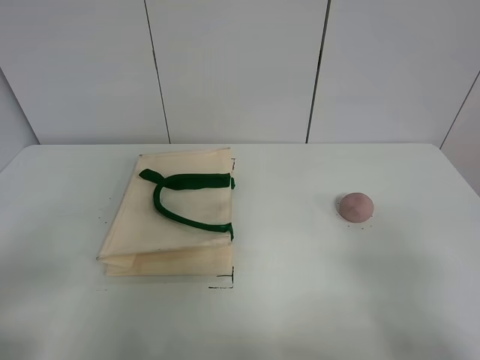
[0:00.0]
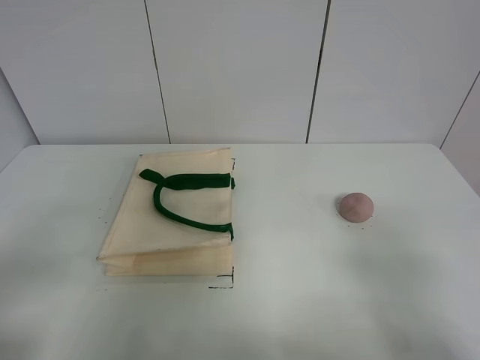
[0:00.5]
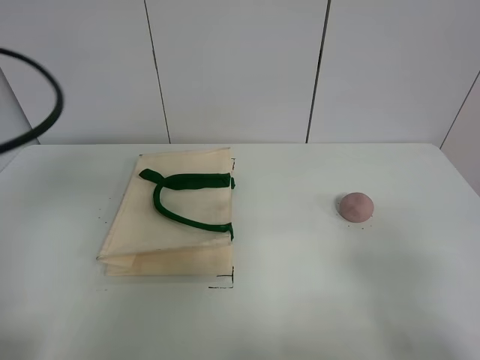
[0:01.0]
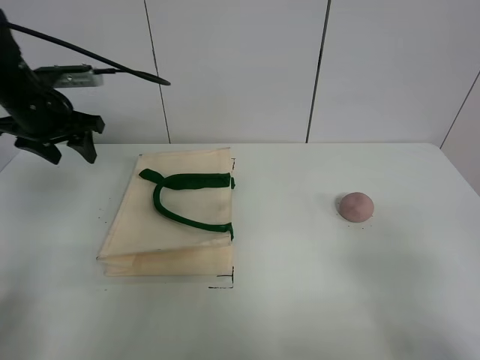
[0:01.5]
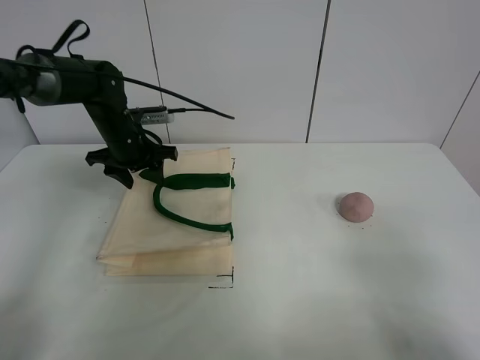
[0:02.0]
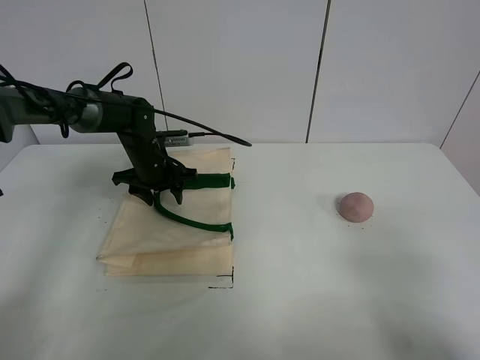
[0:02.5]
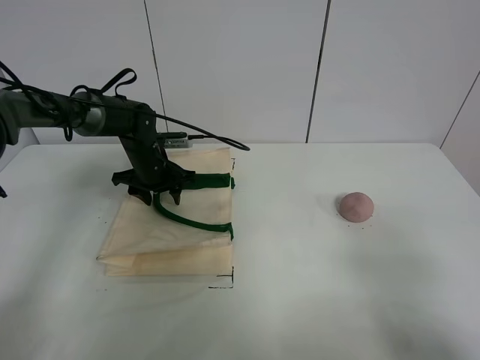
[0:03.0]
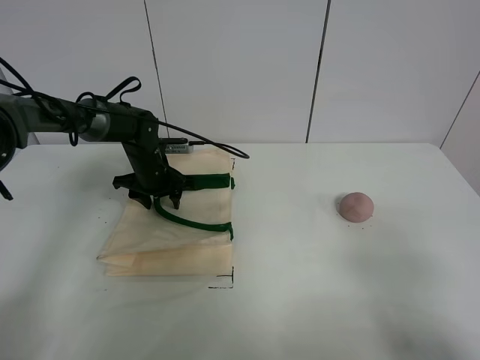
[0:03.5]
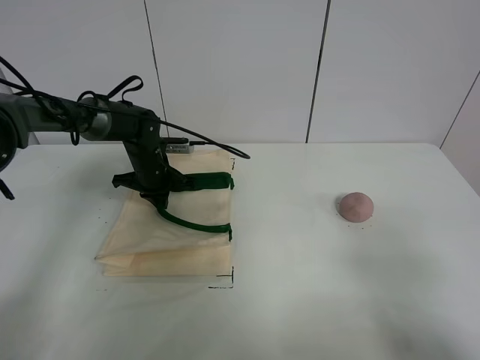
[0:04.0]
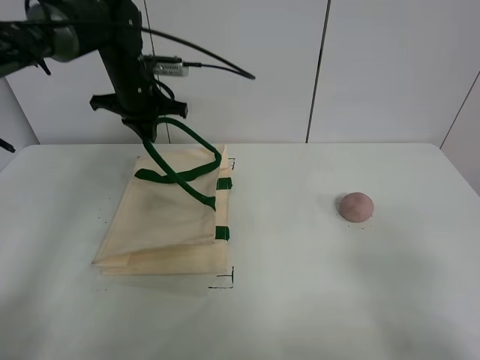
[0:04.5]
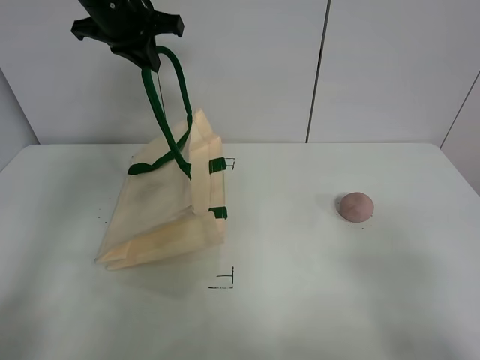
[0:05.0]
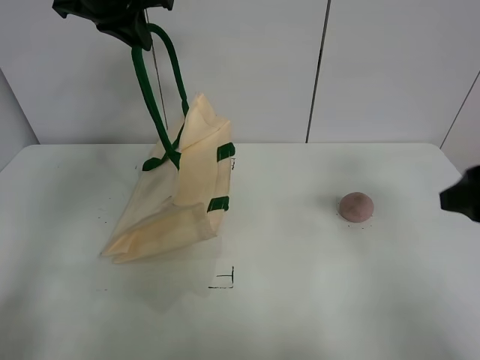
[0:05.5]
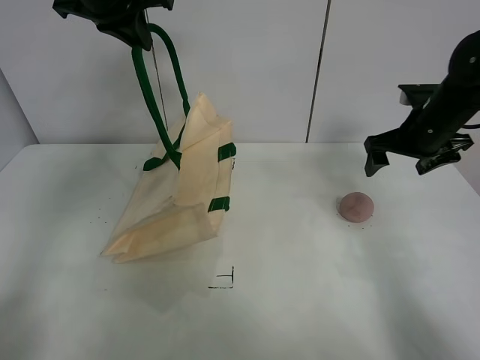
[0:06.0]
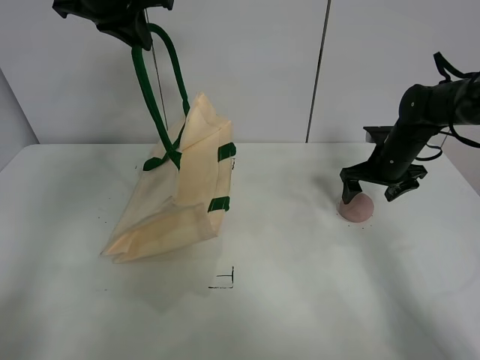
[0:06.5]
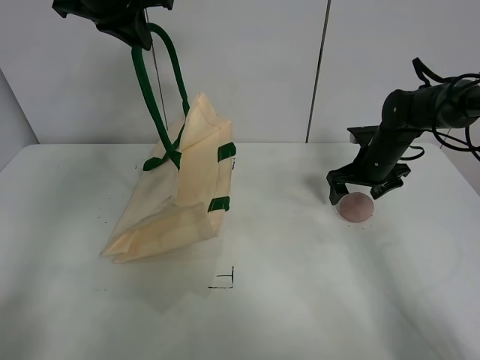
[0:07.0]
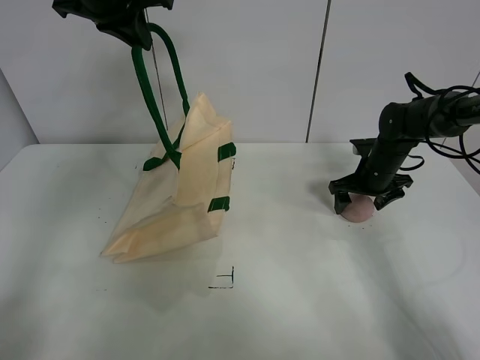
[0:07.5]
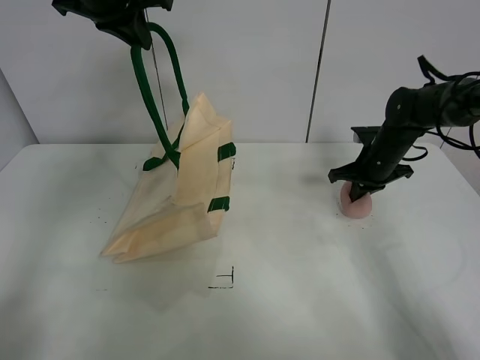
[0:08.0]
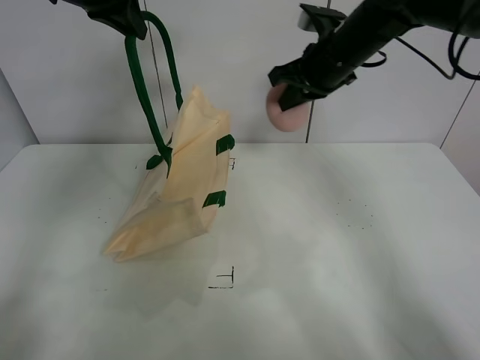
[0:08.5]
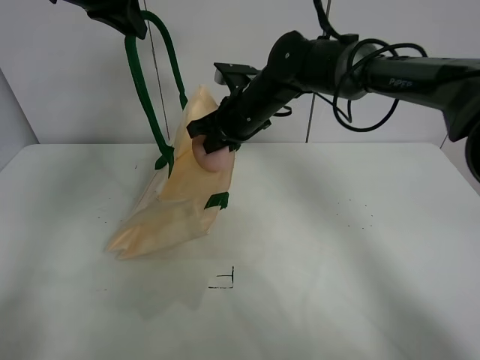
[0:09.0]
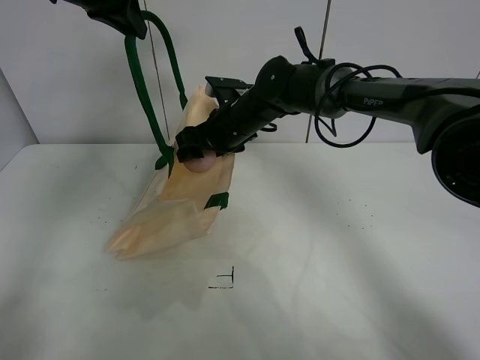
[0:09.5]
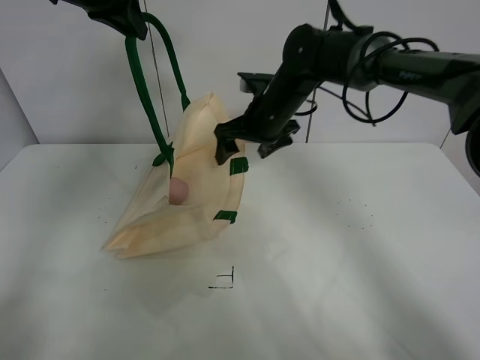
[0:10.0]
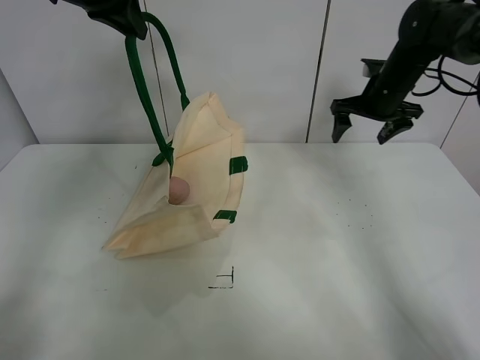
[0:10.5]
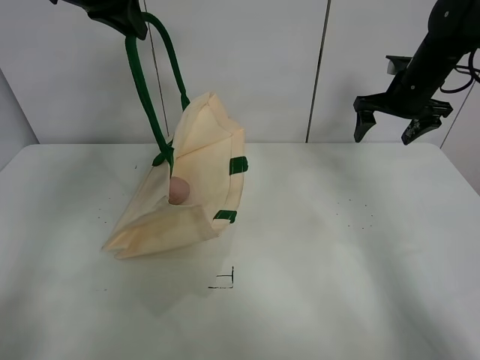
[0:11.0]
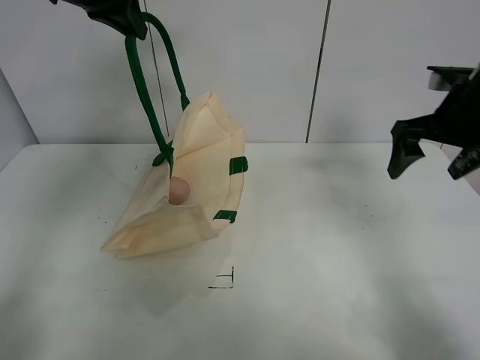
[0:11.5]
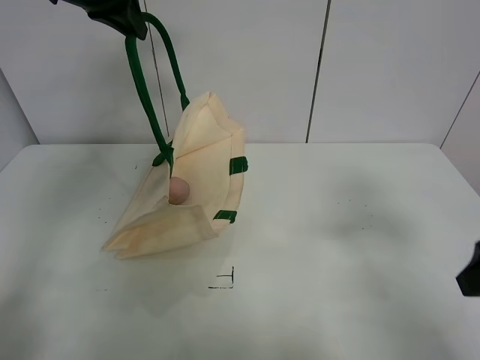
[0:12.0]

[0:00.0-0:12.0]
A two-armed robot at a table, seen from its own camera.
Task of the whole recording: open the white linen bag and put the peach in the bag.
Step, 0:00.0 to 0:05.5: Lift the handbag with left gripper.
Step, 0:06.0 to 0:08.0: Grasp the peach with right gripper.
Step, 0:08.5 to 0:09.5: Place the peach in the handbag with right gripper.
0:00.0 to 0:02.0: The left gripper moves forward, some 40 cm.
0:02.0 to 0:04.0: The left gripper heads downward, covering about 5 cm, and closes up.
0:04.0 to 0:06.0: The left gripper moves upward, approximately 30 cm; the right gripper goes approximately 40 cm forward.
0:06.0 to 0:08.0: The right gripper heads downward, covering roughly 5 cm, and closes its fingers.
0:08.0 to 0:10.0: The right gripper moves to the left and upward, about 20 cm, and opens its fingers.
0:10.0 to 0:12.0: The right gripper travels backward and to the right by some 40 cm.

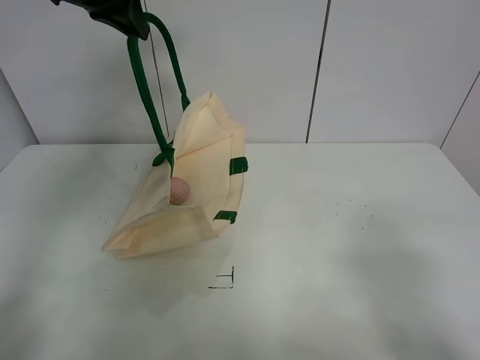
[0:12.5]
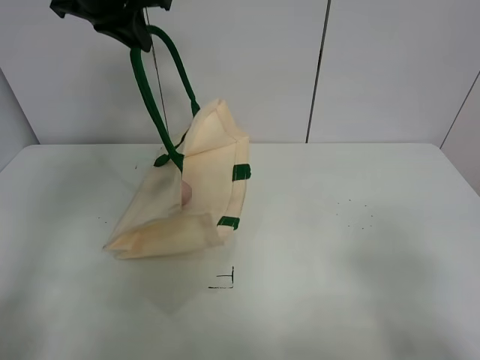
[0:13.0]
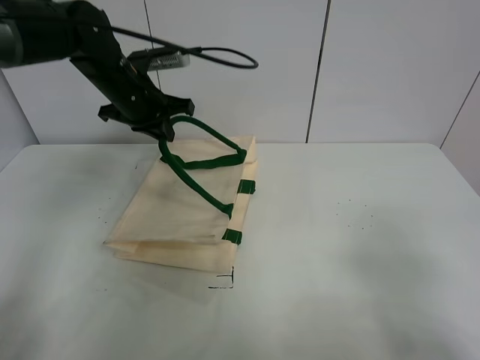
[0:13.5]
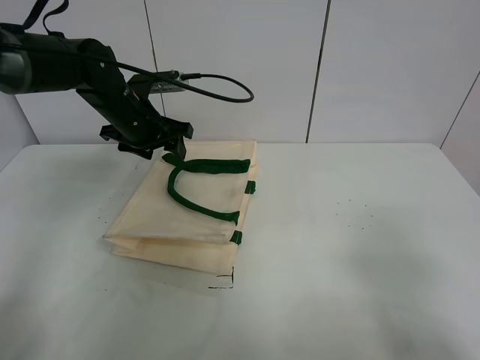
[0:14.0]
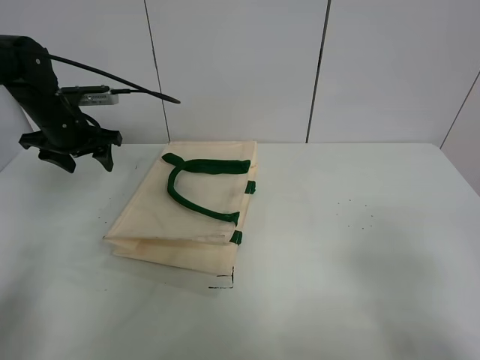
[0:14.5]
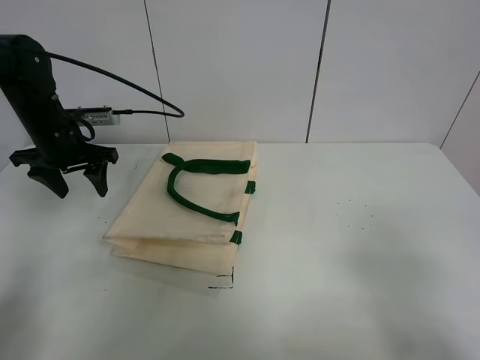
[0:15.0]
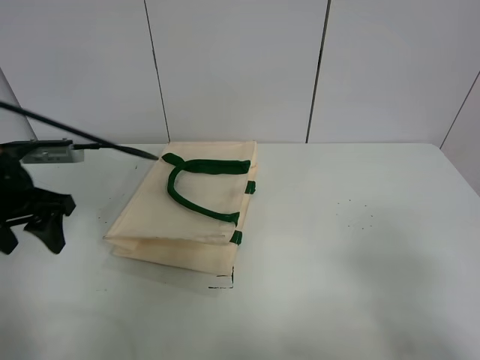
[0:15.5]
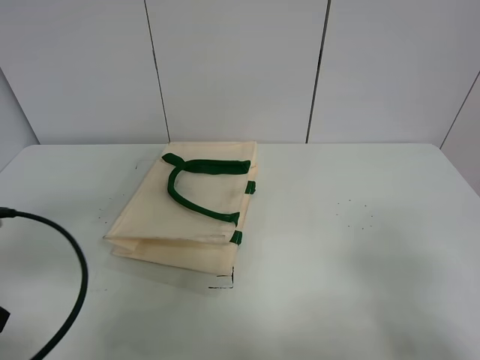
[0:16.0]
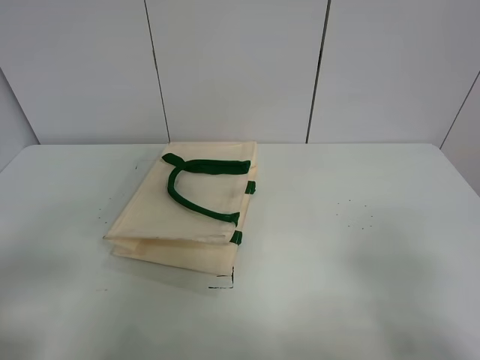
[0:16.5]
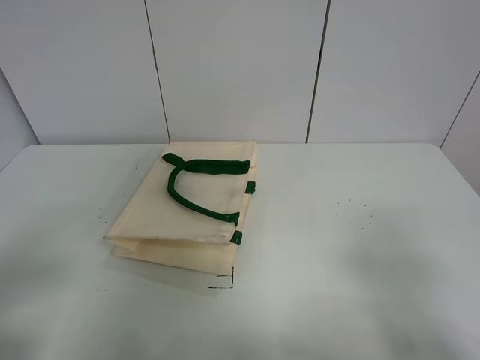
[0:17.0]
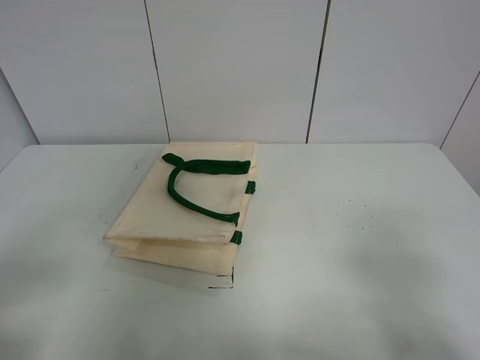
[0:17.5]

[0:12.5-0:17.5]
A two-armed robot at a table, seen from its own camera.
Task of the whole recording: open the white linen bag and put the peach in the bag.
0:12.5 to 0:15.0: The left gripper shifts approximately 25 cm downward and to the left, and opens its fingers.
0:15.0 to 0:17.5: The left gripper heads backward, covering roughly 40 cm.
